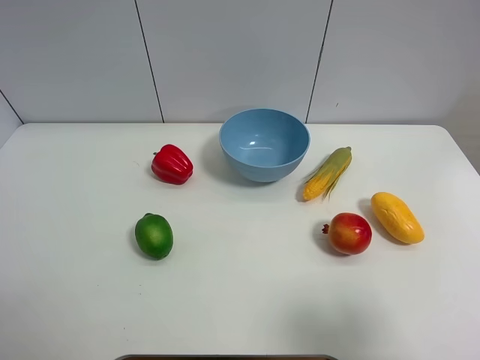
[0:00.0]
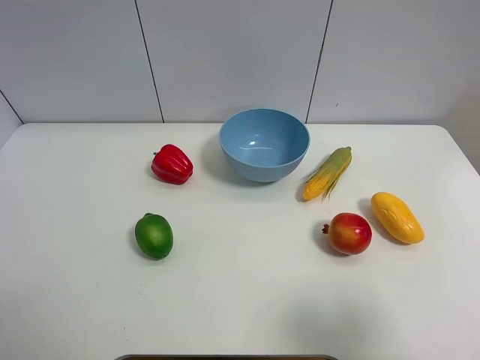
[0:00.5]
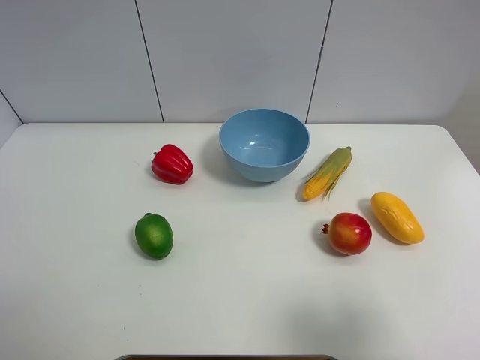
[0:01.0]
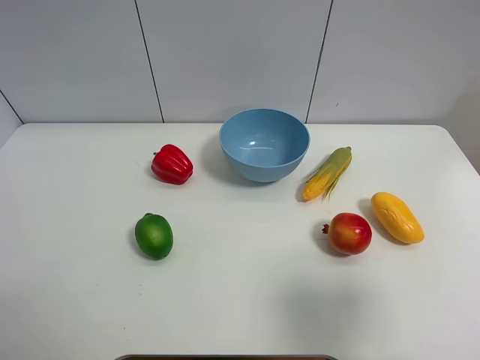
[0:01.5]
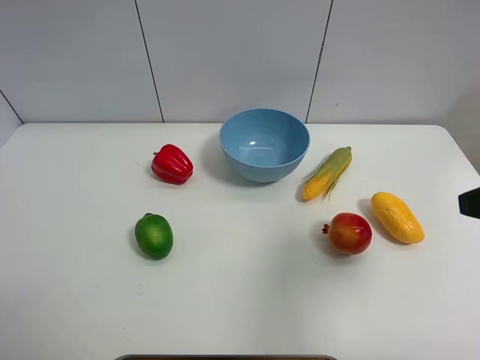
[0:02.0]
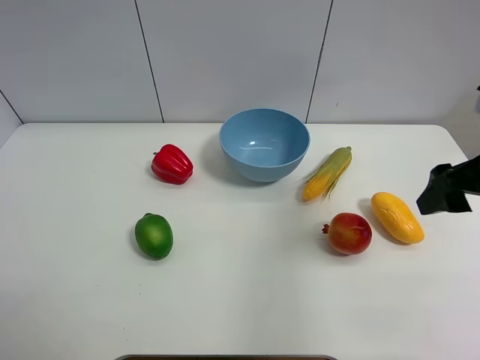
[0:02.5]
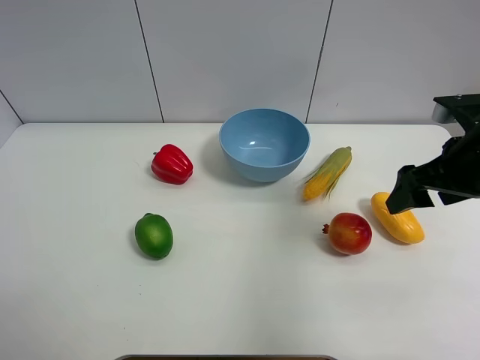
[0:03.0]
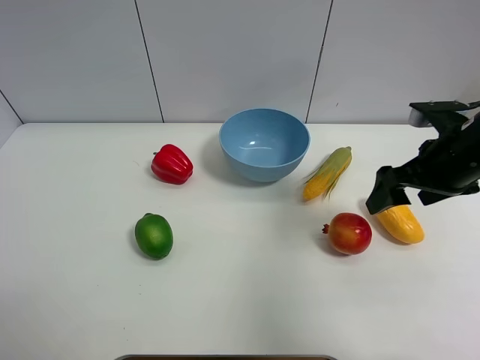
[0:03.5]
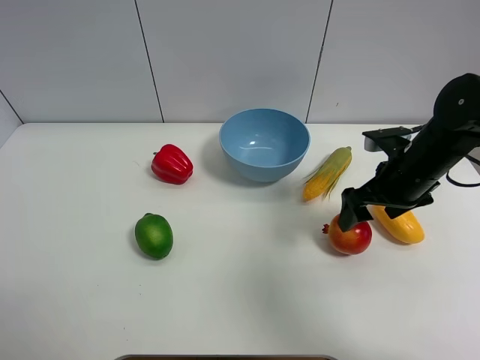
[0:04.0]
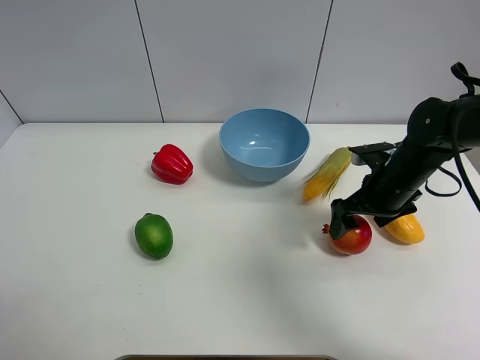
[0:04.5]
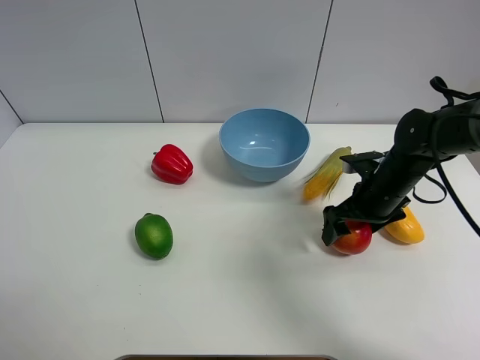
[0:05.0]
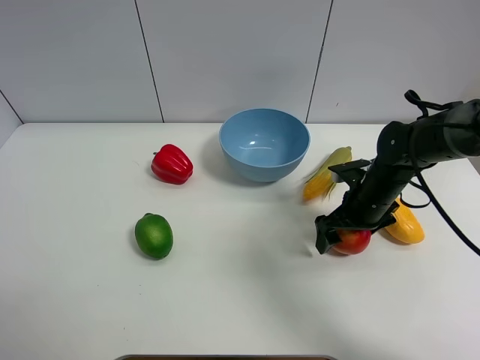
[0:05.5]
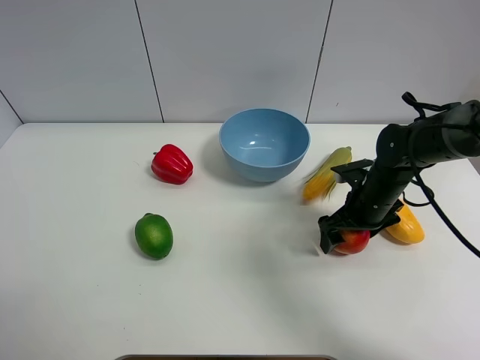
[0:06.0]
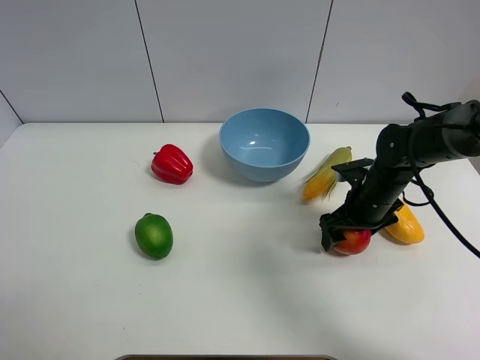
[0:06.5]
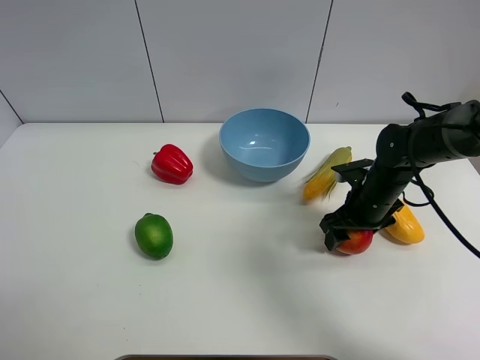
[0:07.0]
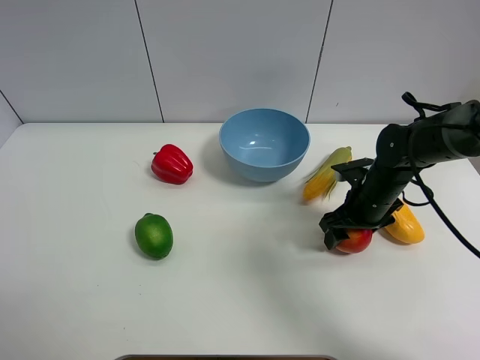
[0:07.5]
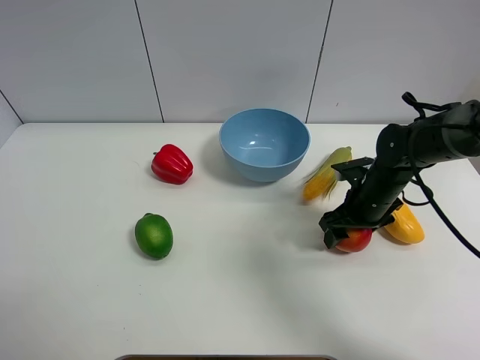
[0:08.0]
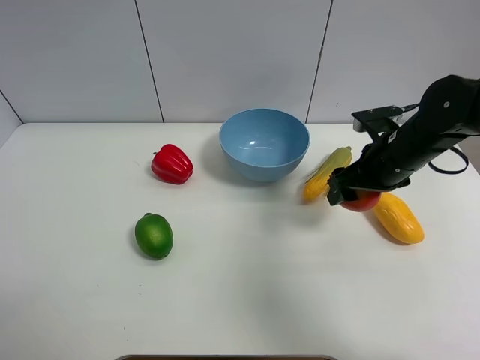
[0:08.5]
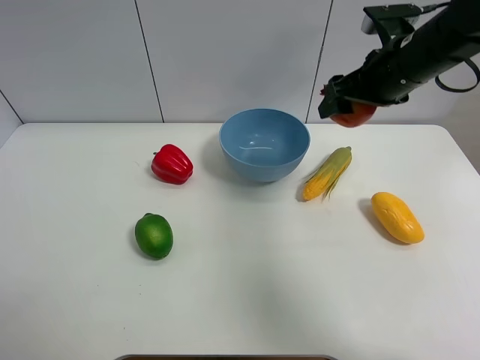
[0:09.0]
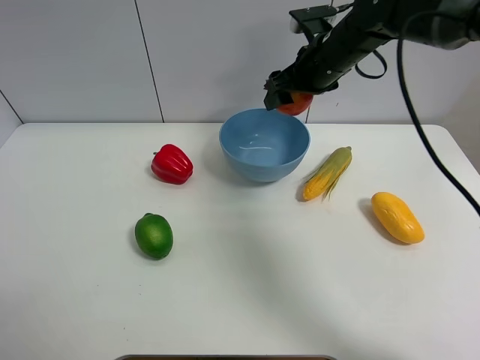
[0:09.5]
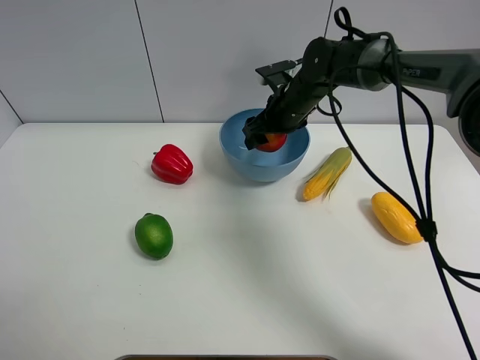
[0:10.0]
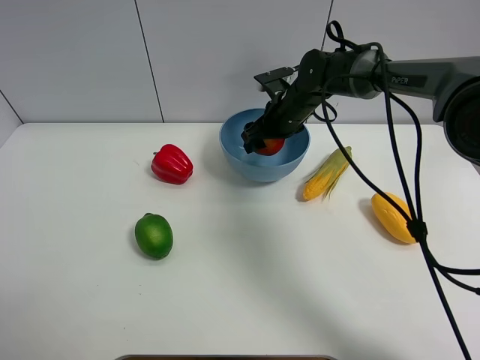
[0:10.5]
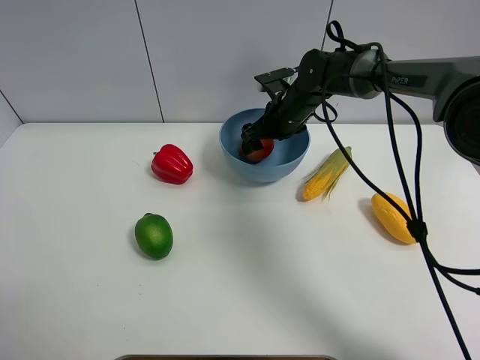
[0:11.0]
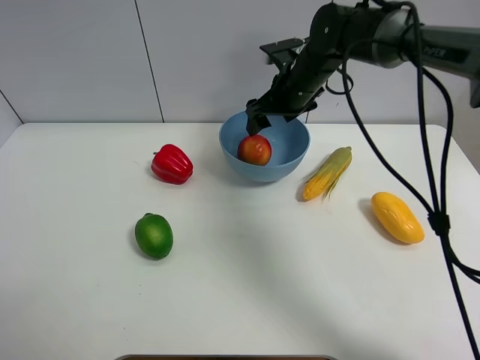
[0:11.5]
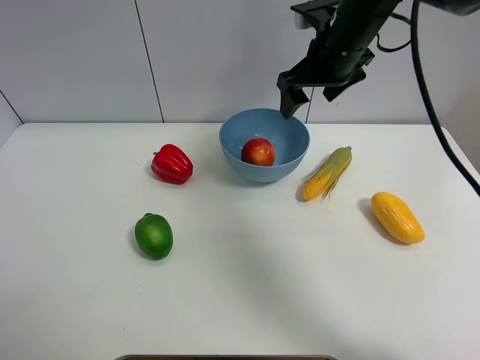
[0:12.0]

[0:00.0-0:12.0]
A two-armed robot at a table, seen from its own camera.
Task of the whole recording: Put the three fruits on the table into a bowl.
Step, 0:00.0 to 0:06.5: Grasp the pomegranate with right gripper.
Step, 0:07.0 to 0:11.0: Place the pomegranate in the blue bowl with right gripper.
0:00.0 to 0:02.0: The right gripper heads forward, covering approximately 15 cm.
0:02.0 to 0:04.0: The right gripper travels forward and downward by approximately 20 cm.
0:04.0 to 0:06.0: The right gripper is displaced downward by approximately 10 cm.
0:06.0 to 0:08.0: The right gripper closes.
0:08.0 to 0:10.0: The right gripper moves forward, to the left and upward, roughly 20 cm.
0:10.0 to 0:12.0: The right gripper heads upward and backward, covering roughly 15 cm.

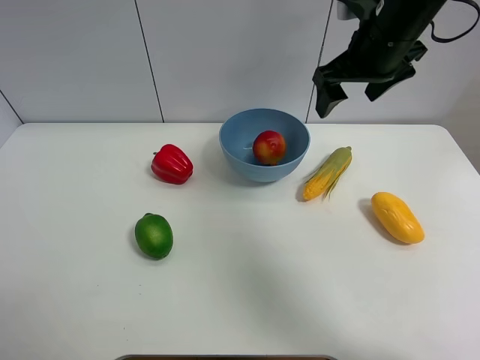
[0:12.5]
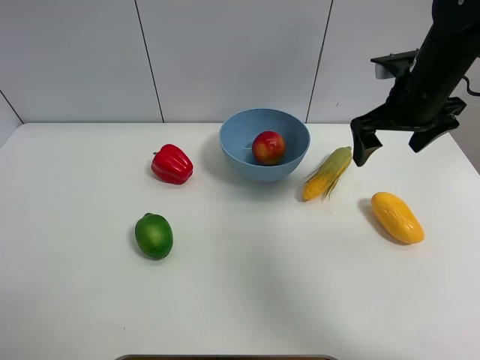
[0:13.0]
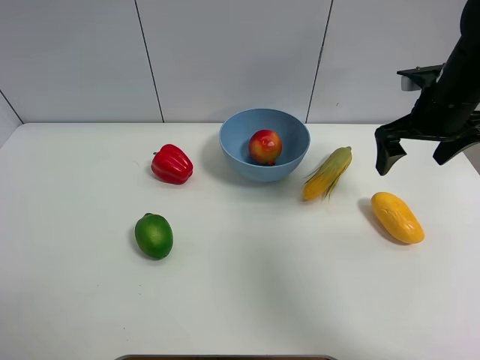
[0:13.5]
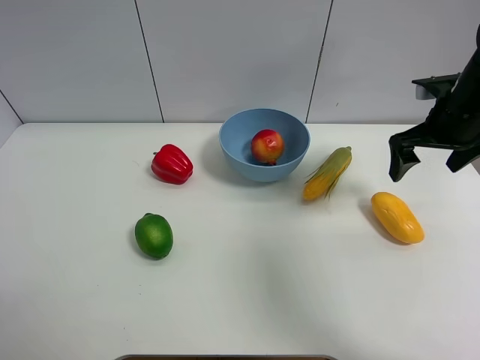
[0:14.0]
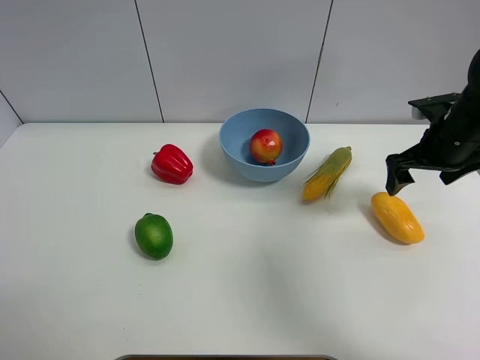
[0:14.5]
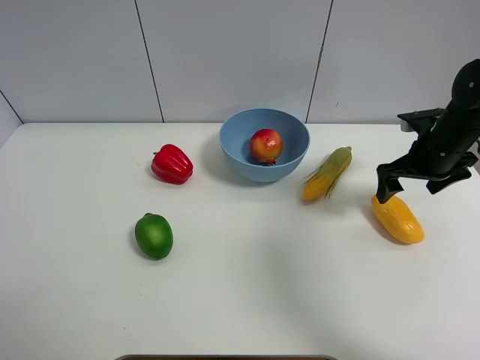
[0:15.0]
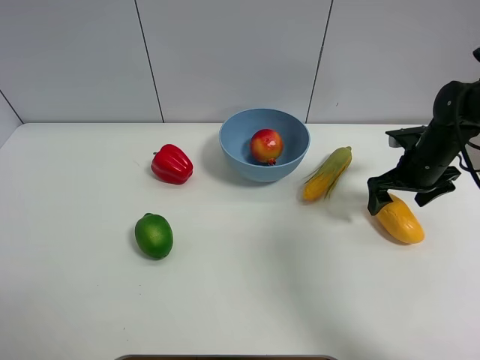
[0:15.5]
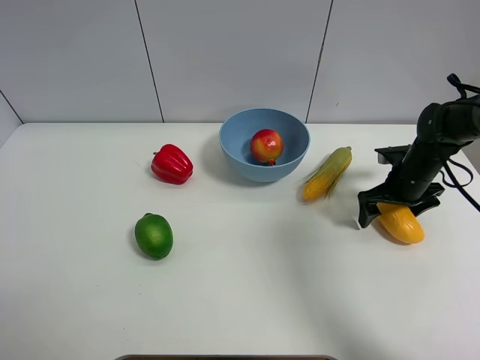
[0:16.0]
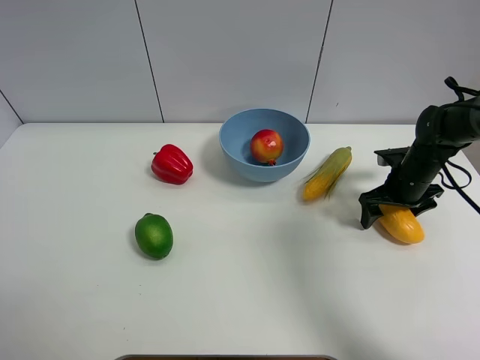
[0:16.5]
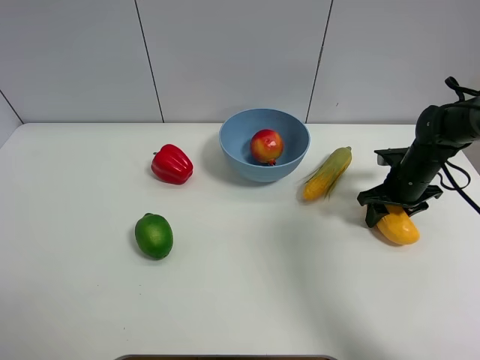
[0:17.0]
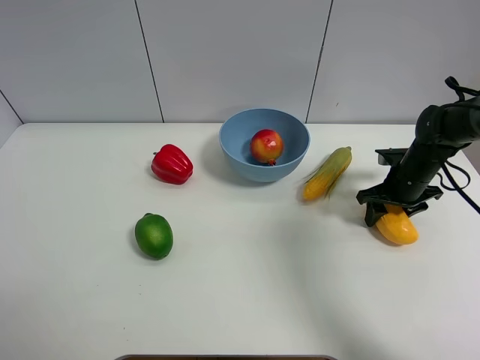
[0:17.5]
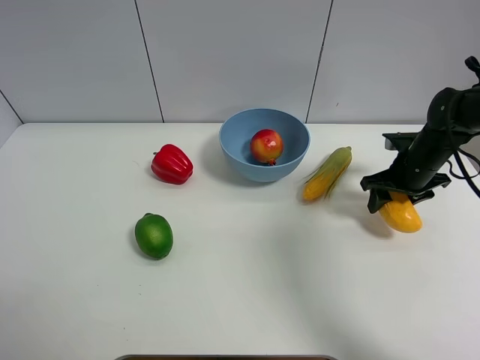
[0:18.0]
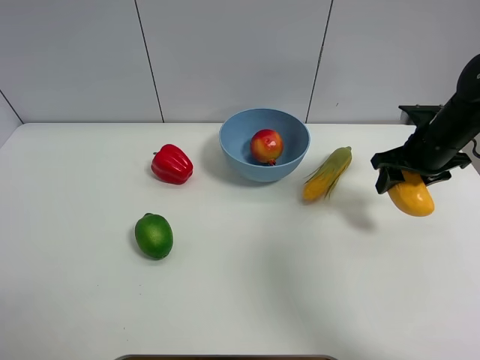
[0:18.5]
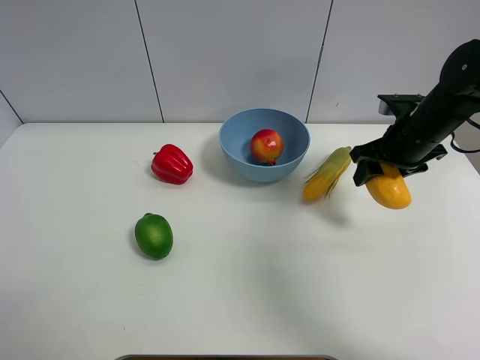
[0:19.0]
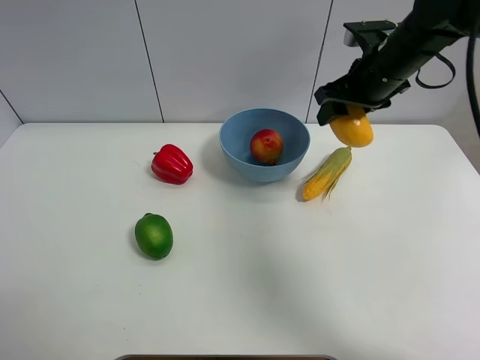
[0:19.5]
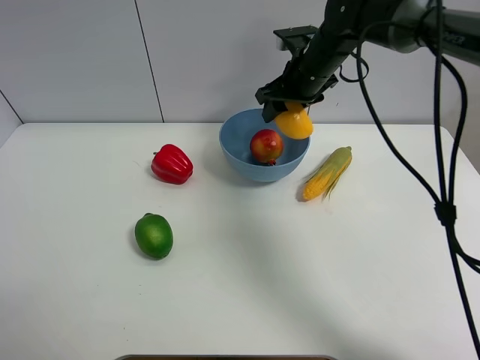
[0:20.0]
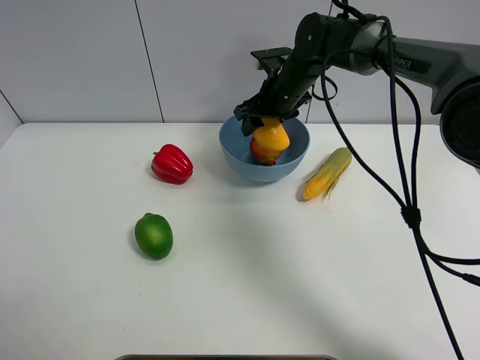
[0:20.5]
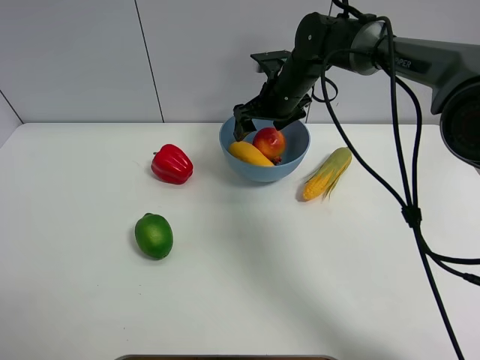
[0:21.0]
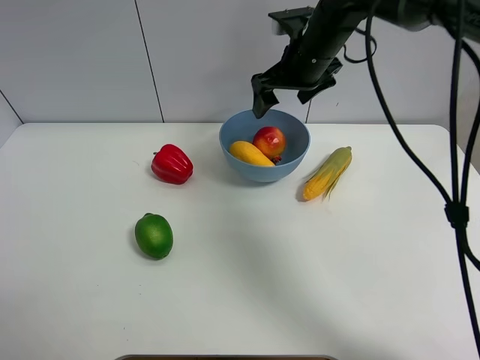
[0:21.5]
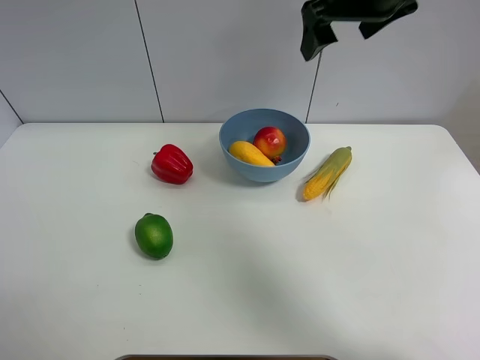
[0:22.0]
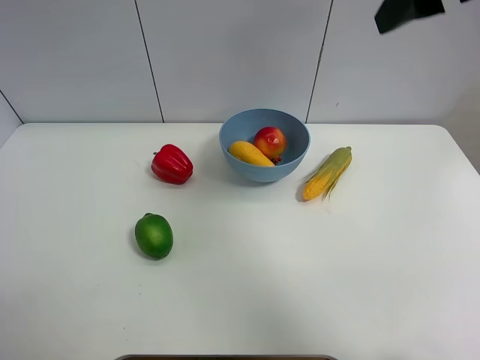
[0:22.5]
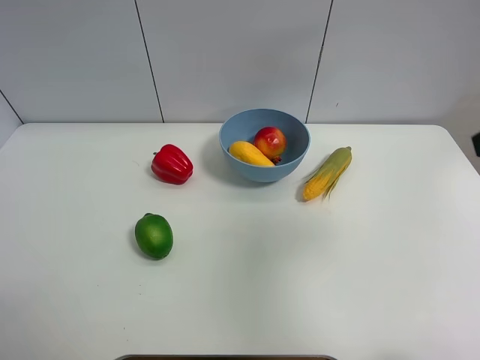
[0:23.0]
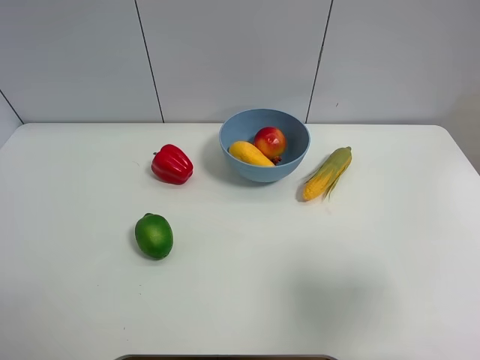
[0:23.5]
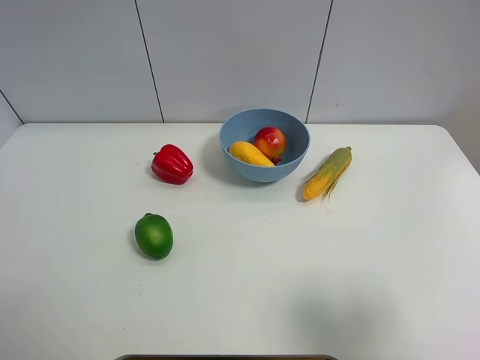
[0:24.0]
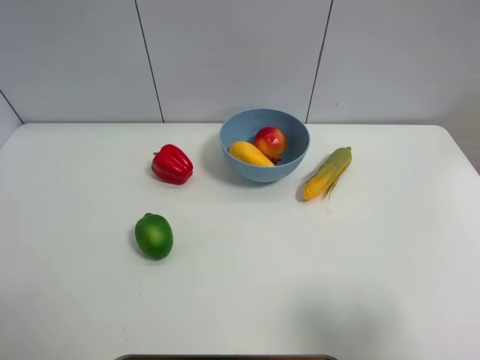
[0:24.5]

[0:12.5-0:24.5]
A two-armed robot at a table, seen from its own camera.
Task of the whole recording: Put the three fruits on the table into a bowl.
Step, 0:12.5 to 0:17.0: Grasp the mango with right gripper.
Step, 0:17.5 to 0:20.5: Place the mango in the blue bowl with right gripper.
0:12.5 to 0:14.5: The right gripper travels to the right and downward by some 20 cm.
0:14.5 to 0:16.5: The right gripper heads downward, covering roughly 10 cm.
0:16.5 to 0:18.5: The right gripper moves upward, approximately 10 cm, and closes up.
0:18.5 to 0:20.5: The right gripper travels to the left and forward by approximately 25 cm.
0:20.5 to 0:22.5: The right gripper goes about 35 cm upward, backward and to the right, and opens.
0:22.5 to 0:24.5: The right gripper shifts roughly 30 cm backward and downward.

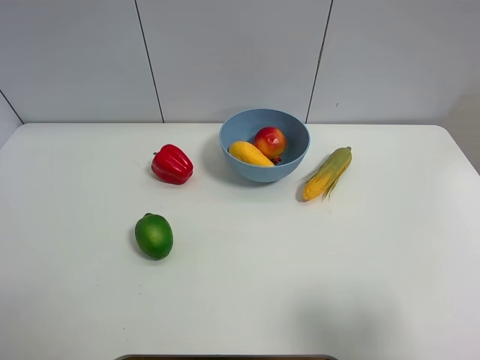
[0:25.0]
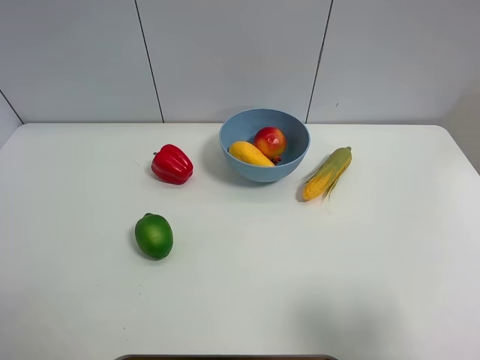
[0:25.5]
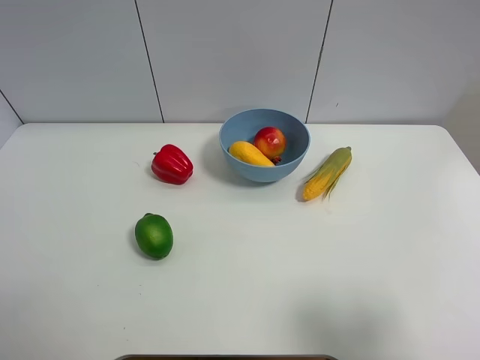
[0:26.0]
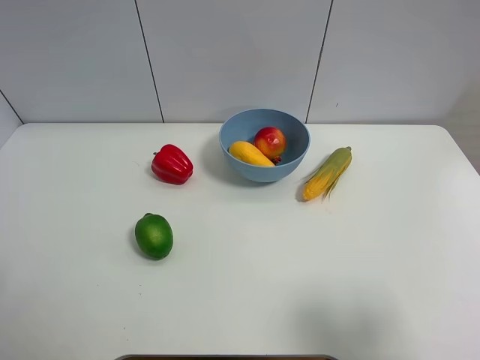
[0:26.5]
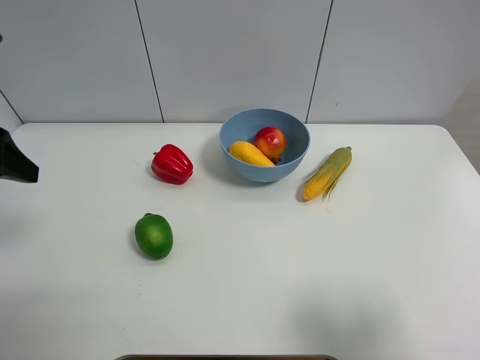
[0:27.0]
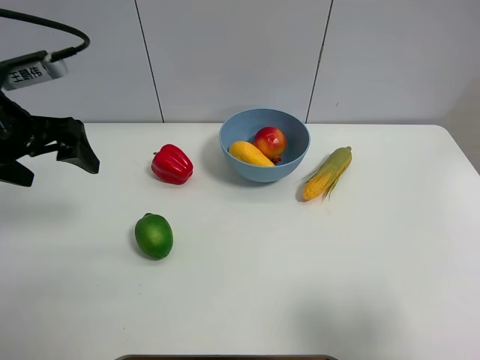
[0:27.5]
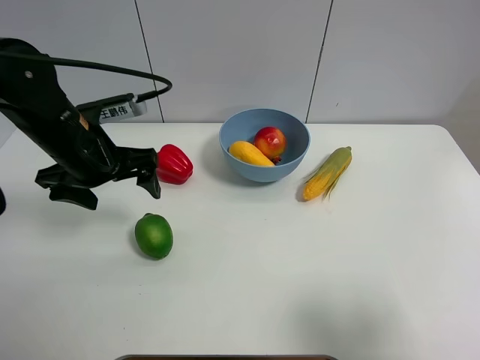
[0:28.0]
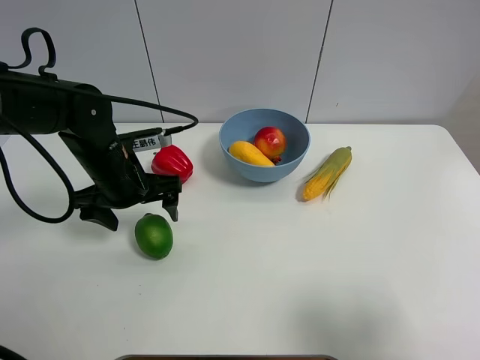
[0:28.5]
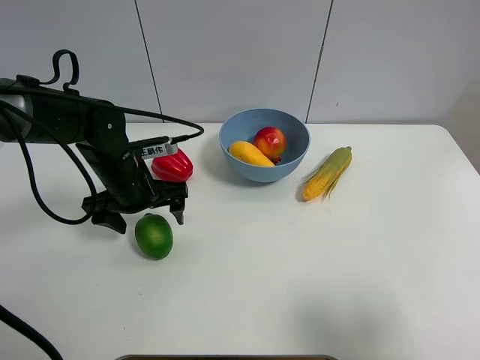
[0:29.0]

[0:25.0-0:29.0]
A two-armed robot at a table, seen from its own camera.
Task of the whole recording: Put the three fruits on the table into a bowl.
0:25.0 to 0:27.0: The left gripper moves forward, approximately 20 cm.
0:27.0 to 0:29.0: The left gripper heads downward, to the right and forward, covering roughly 25 cm.
